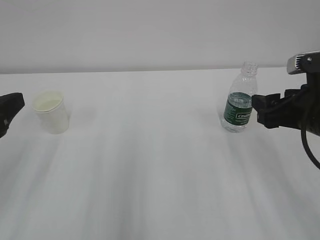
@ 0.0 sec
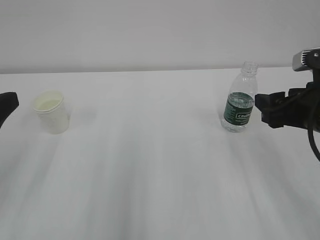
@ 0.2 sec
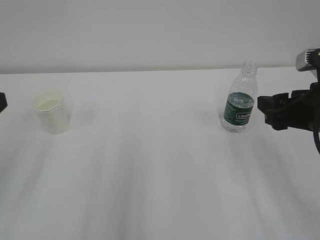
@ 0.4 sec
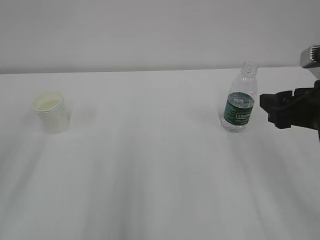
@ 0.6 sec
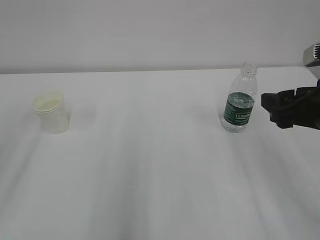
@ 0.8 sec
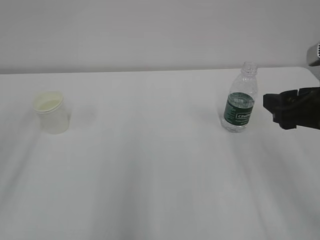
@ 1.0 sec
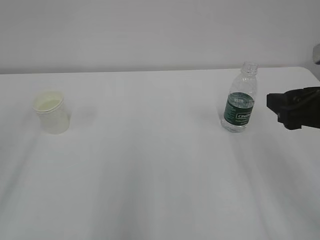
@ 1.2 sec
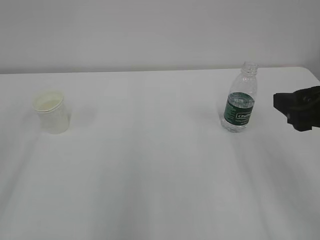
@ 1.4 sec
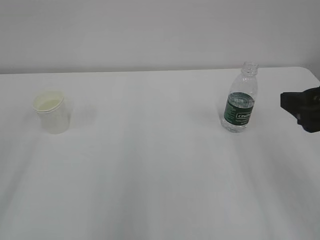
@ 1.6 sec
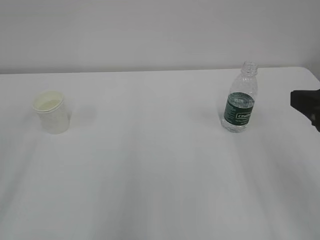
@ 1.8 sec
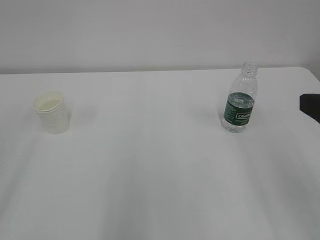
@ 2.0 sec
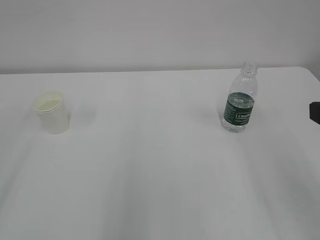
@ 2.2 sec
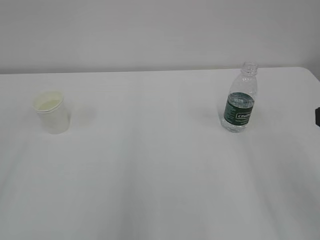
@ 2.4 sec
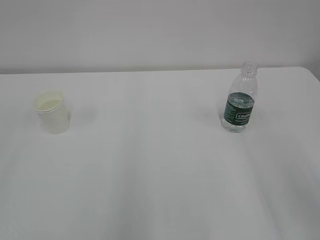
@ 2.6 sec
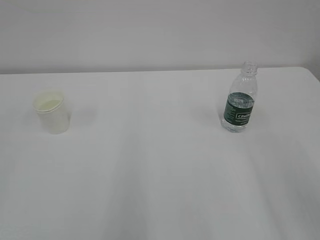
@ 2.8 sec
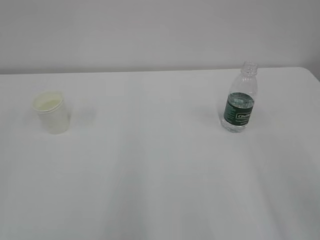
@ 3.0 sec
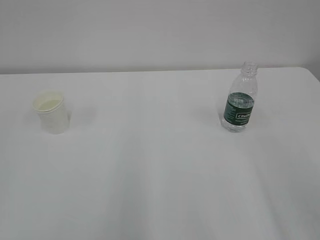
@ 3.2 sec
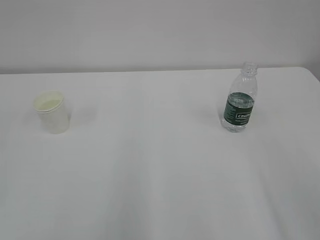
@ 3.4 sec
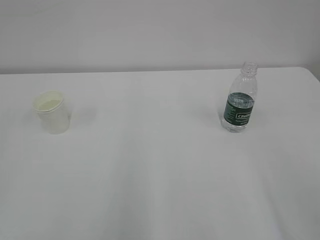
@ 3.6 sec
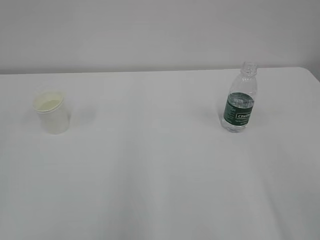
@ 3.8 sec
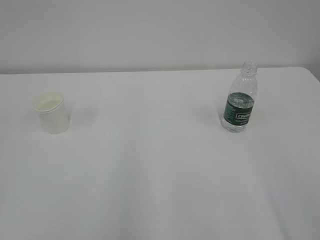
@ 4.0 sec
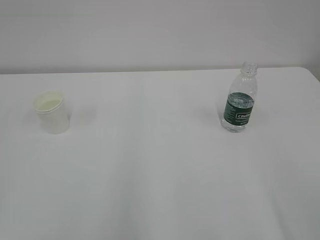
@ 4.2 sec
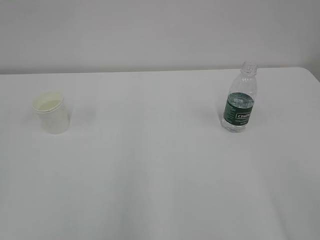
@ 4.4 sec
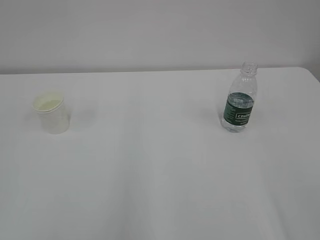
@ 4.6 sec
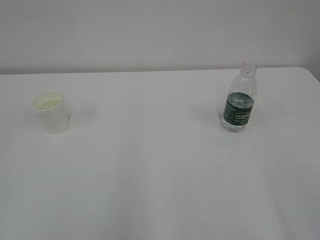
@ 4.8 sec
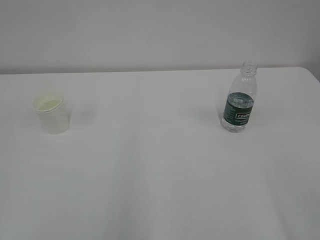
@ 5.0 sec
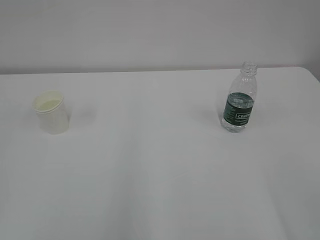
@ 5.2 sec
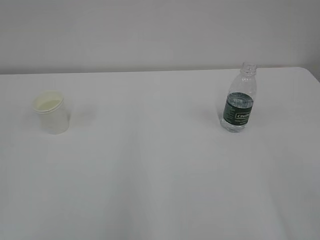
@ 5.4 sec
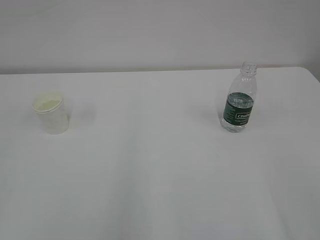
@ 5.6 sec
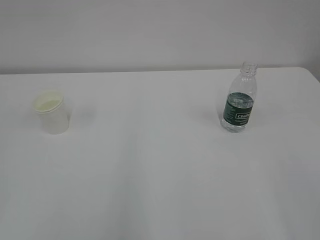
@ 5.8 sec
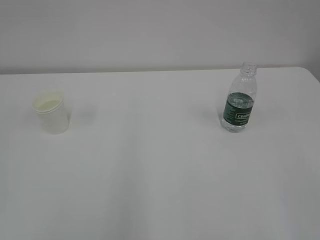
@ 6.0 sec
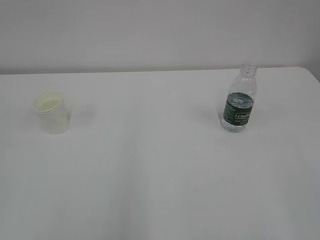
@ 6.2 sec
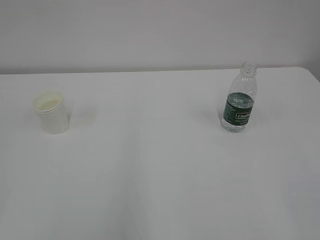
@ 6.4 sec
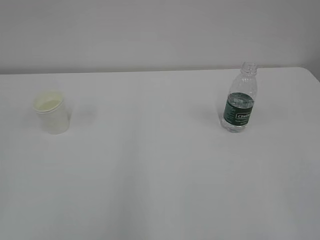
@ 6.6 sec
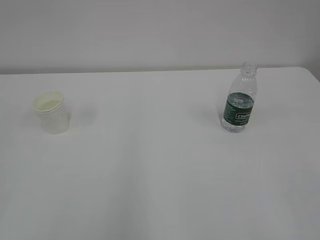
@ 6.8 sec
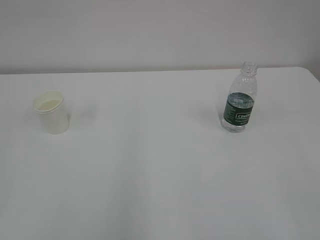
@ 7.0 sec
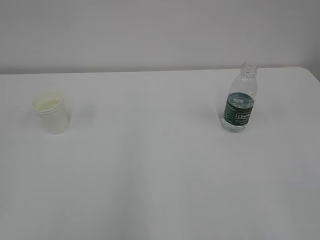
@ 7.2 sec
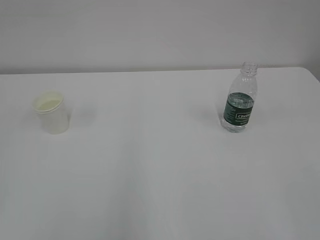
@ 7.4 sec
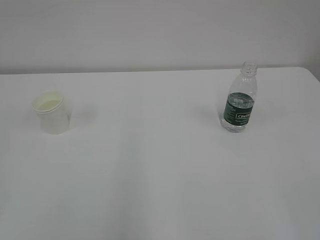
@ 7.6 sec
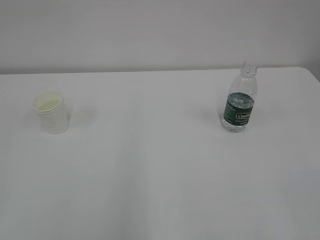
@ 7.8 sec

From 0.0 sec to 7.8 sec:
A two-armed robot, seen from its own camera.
From 0.0 sec to 1.6 sec: The left gripper is displaced upward and backward by roughly 10 cm, while the right gripper moves backward and upward, roughly 10 cm.
From 1.6 sec to 3.2 sec: The right gripper shifts roughly 10 cm backward.
From 6.2 sec to 7.8 sec: Both grippers stay put.
